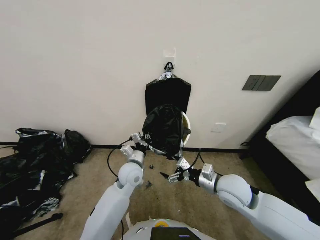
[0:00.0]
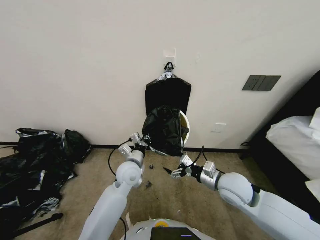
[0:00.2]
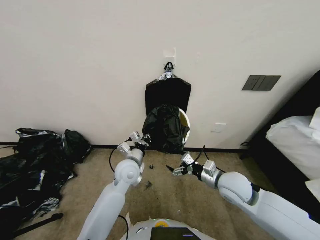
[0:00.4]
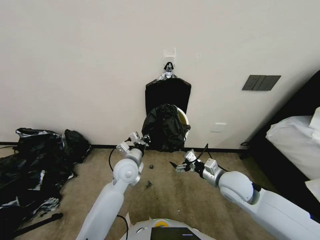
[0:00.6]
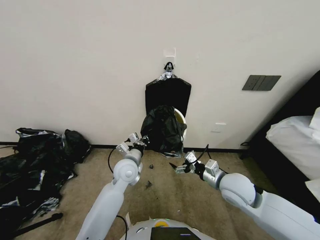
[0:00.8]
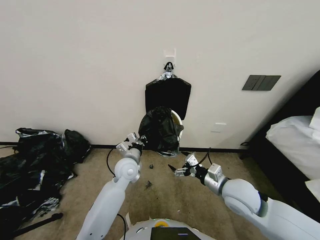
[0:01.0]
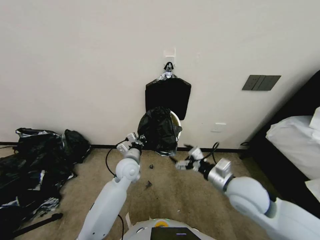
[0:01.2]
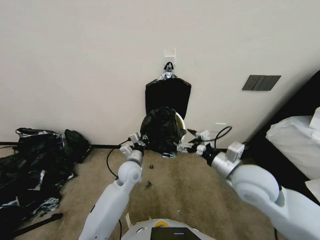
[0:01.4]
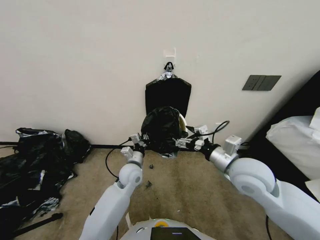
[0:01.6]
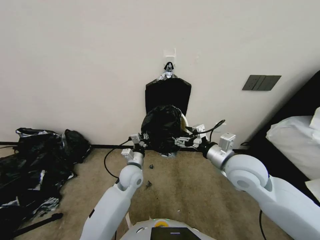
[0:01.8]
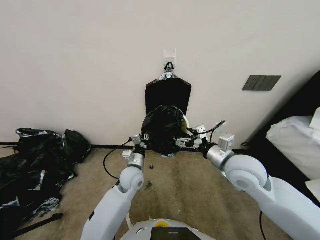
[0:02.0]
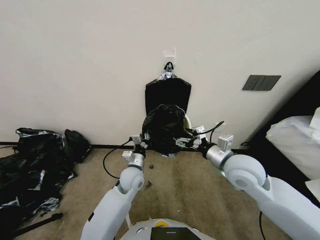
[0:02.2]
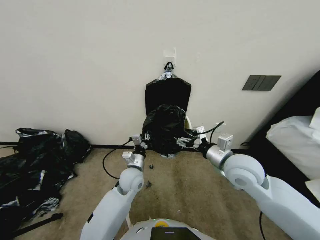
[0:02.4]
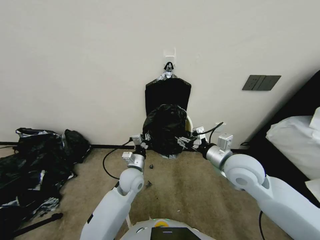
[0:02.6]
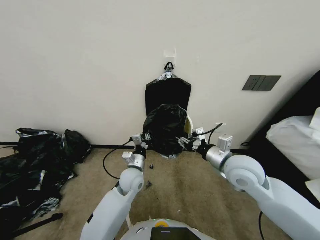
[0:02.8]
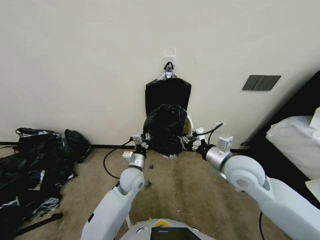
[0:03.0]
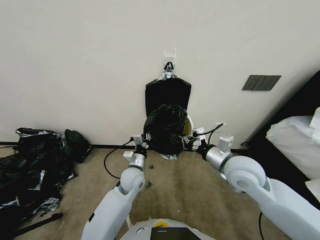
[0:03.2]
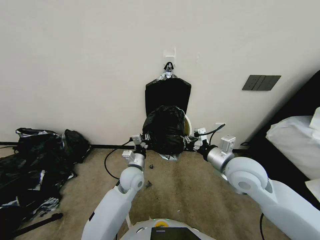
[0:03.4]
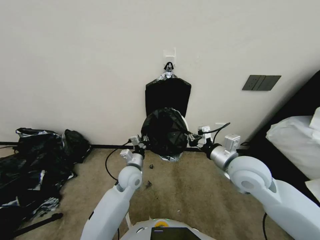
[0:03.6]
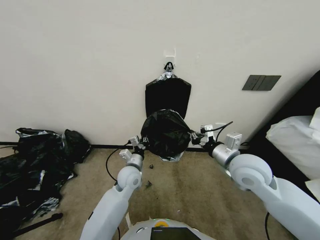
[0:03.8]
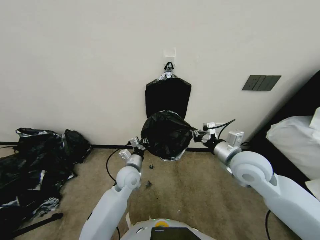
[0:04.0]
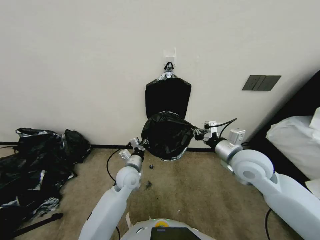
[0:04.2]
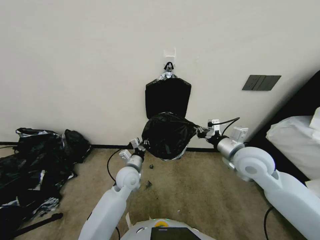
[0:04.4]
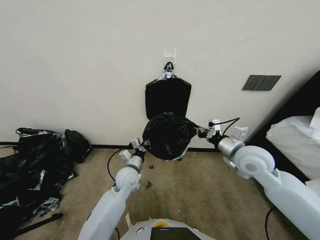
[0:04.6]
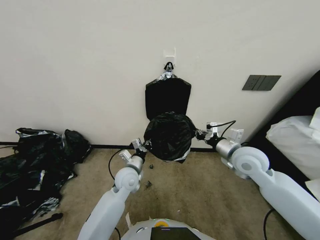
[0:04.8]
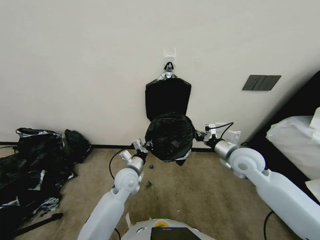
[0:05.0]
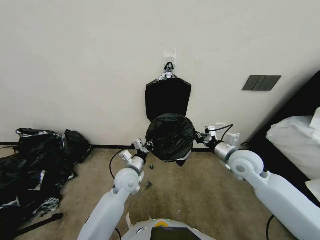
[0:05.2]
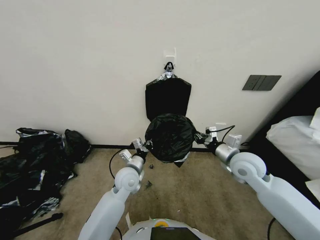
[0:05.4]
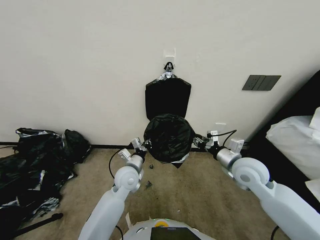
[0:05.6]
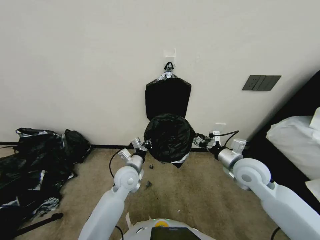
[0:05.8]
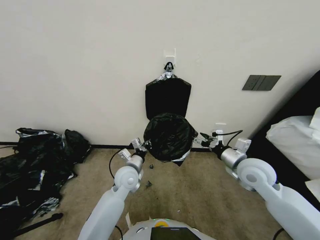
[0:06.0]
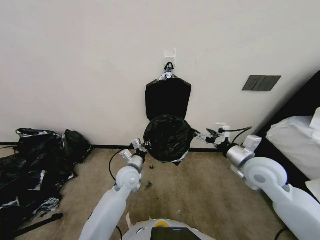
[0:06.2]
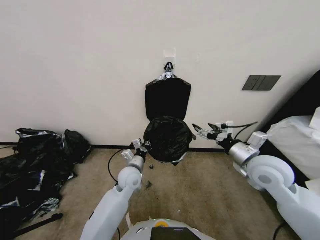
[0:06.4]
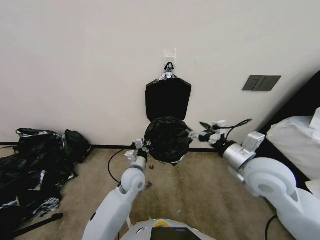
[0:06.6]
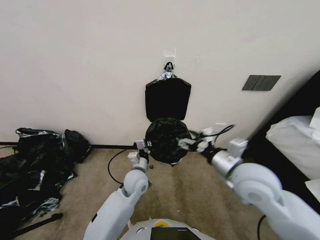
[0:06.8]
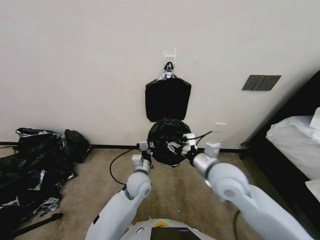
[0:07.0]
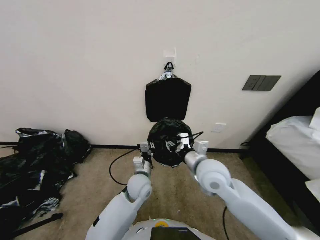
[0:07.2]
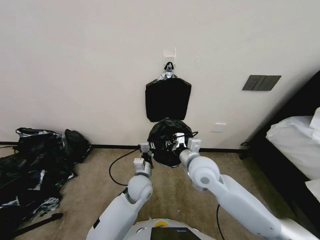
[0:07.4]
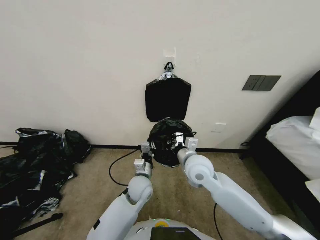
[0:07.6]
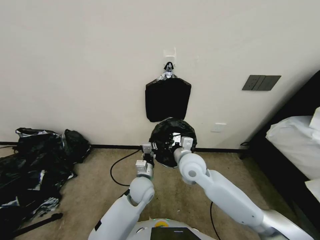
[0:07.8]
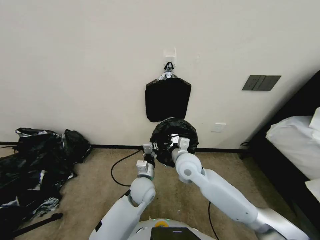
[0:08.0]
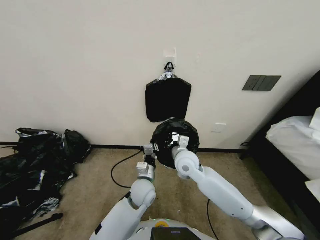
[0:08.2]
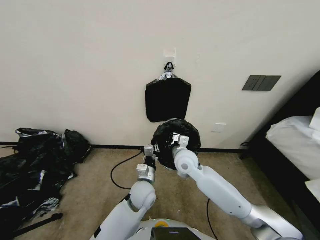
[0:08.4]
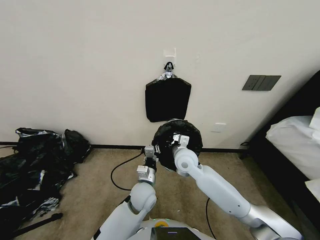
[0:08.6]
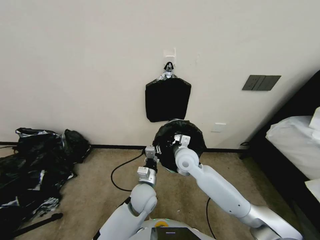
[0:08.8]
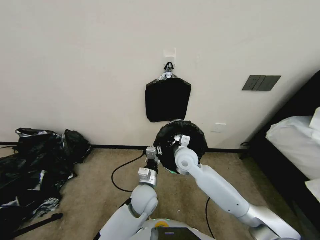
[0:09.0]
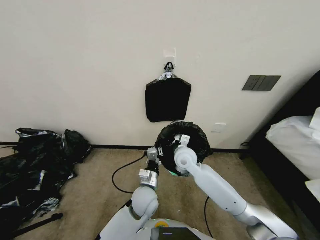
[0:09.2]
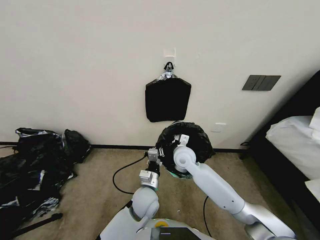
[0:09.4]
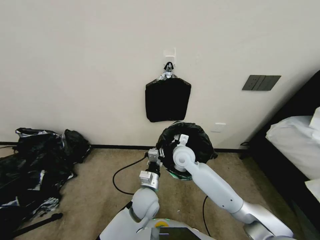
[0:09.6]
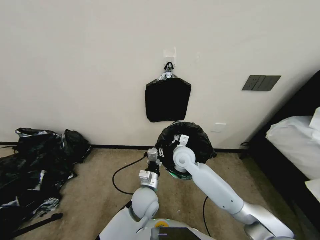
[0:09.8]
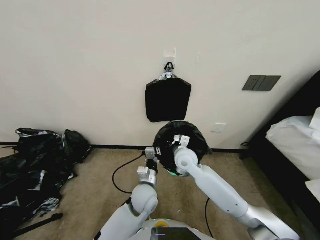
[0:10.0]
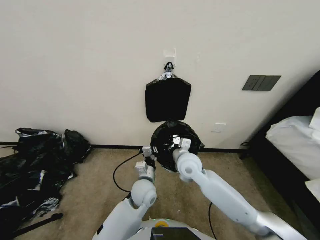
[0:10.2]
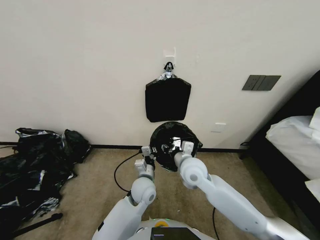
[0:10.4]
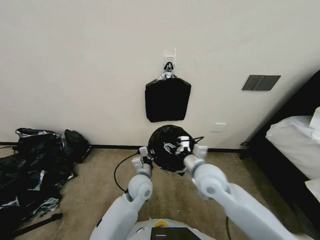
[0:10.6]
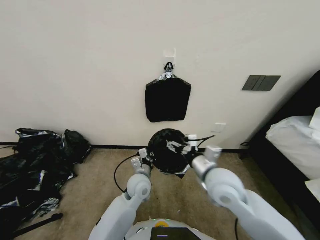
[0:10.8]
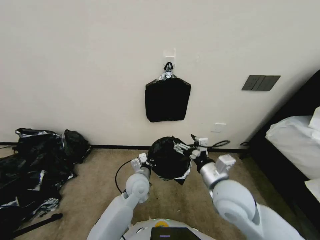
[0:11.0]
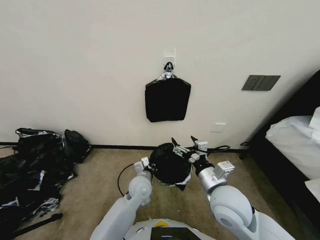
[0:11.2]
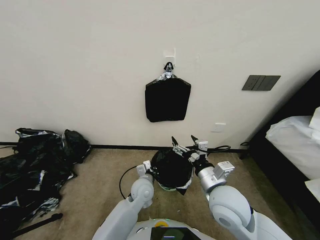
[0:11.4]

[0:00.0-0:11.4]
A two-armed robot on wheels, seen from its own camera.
Task of the whole recording: Place a trash bag onto the trash bin.
0:00.0 to 0:01.4: The right gripper heads upward, covering some 5 cm.
0:01.4 to 0:02.8: The right gripper moves roughly 5 cm, and closes up.
0:02.8 to 0:04.2: The right gripper closes up.
0:04.2 to 0:05.6: The right gripper moves some 5 cm.
0:05.6 to 0:07.2: The right gripper shifts roughly 15 cm to the left, and opens, then closes once more. Meanwhile the left gripper shifts roughly 5 cm to the right.
0:07.2 to 0:08.6: The right gripper heads forward, to the left and downward, covering about 15 cm, and closes up.
0:08.6 to 0:10.0: The grippers move only a little.
0:10.0 to 0:11.4: The left gripper moves roughly 5 cm. The right gripper is displaced backward and to the right by about 20 cm, and opens up.

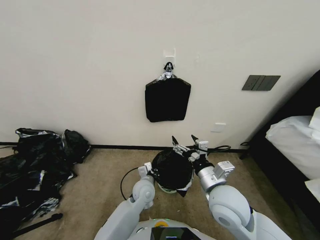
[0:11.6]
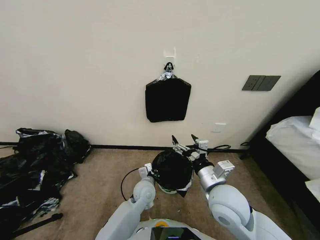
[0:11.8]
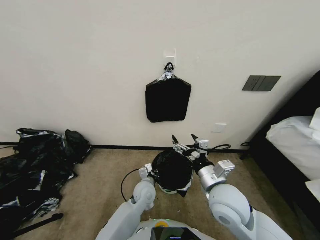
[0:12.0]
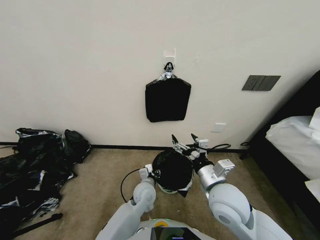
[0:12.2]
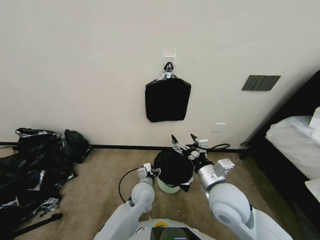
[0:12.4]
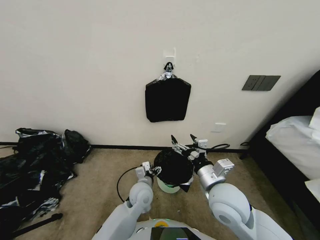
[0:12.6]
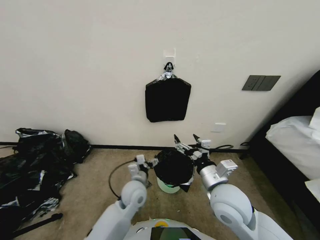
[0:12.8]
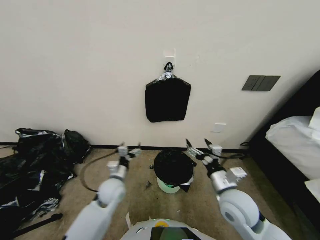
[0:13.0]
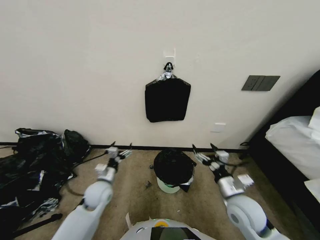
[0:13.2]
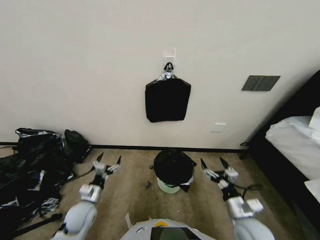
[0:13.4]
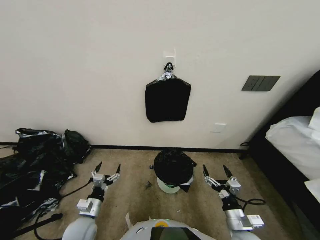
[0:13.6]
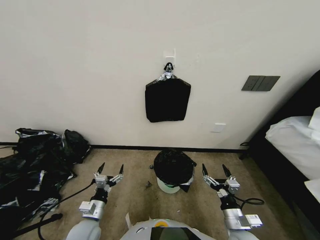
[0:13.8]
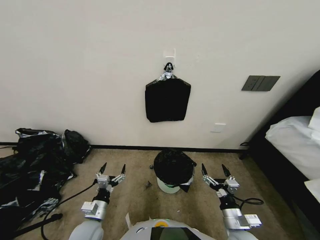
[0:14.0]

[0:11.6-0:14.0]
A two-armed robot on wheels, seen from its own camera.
Task of the whole recording: Place a trash bag onto the trash bin.
0:11.6 to 0:12.8: The left gripper opens.
0:12.8 to 0:14.0: The left gripper travels to the left and backward by roughly 20 cm, while the right gripper heads downward, to the right and backward, covering approximately 20 cm.
